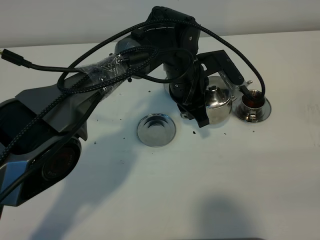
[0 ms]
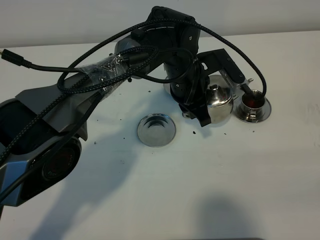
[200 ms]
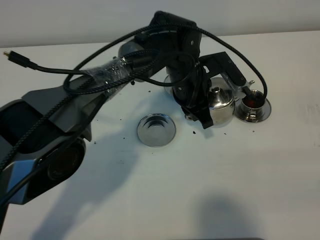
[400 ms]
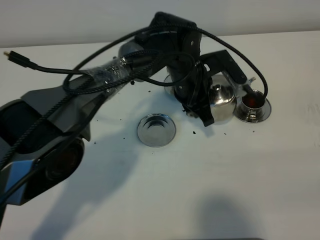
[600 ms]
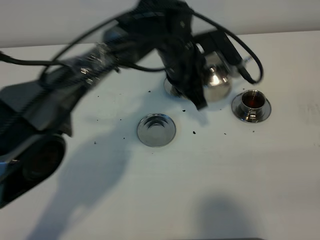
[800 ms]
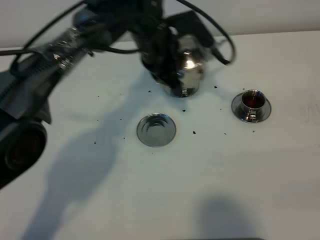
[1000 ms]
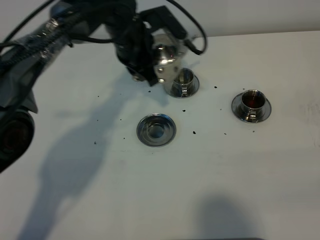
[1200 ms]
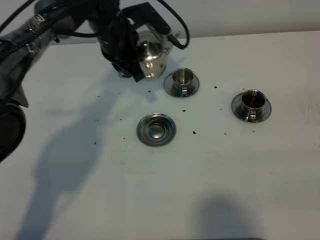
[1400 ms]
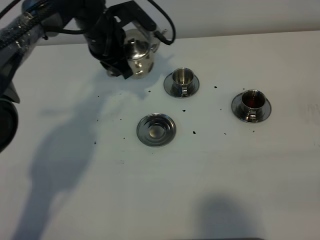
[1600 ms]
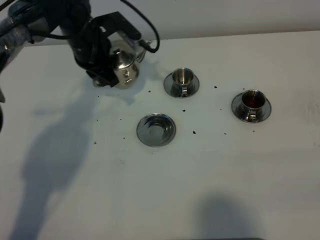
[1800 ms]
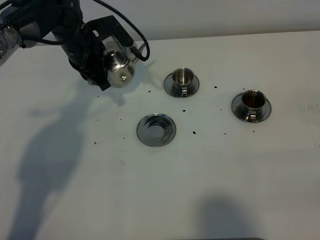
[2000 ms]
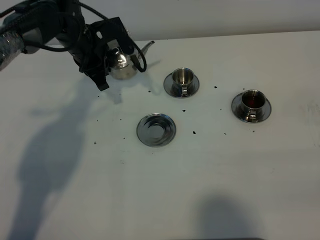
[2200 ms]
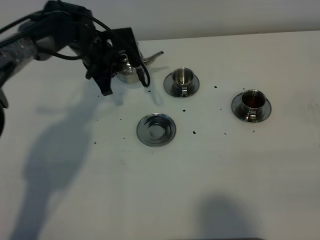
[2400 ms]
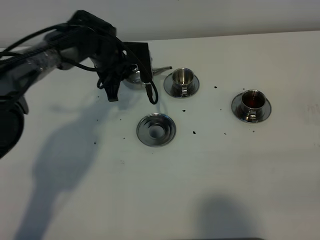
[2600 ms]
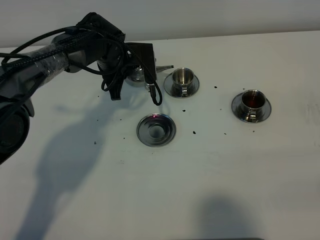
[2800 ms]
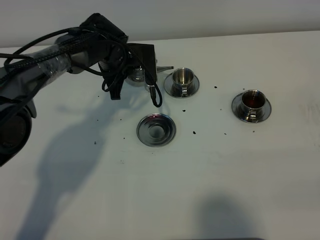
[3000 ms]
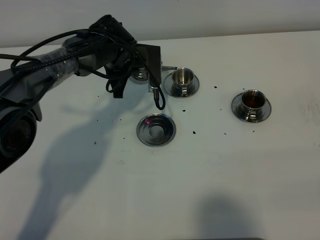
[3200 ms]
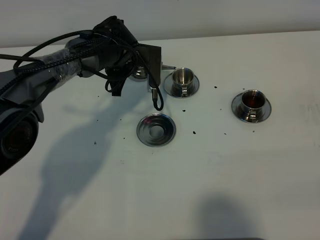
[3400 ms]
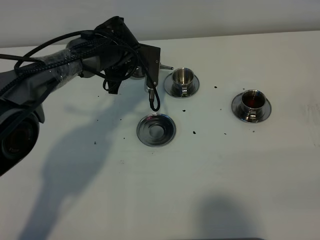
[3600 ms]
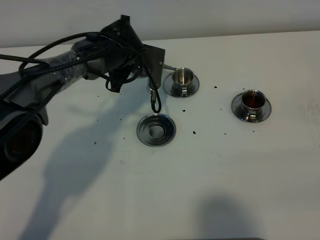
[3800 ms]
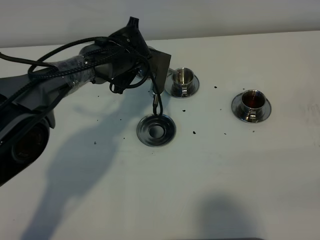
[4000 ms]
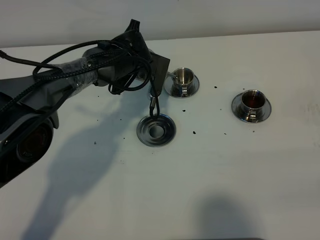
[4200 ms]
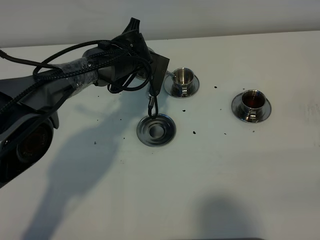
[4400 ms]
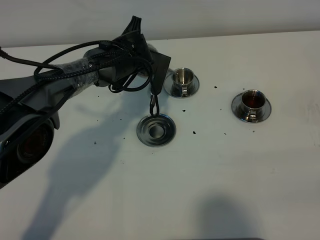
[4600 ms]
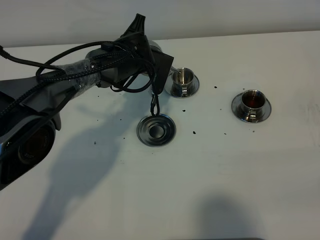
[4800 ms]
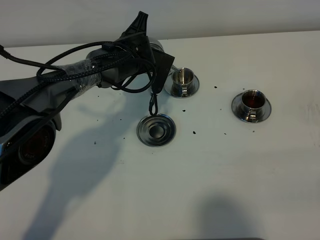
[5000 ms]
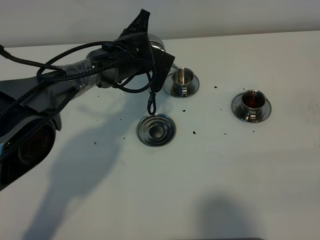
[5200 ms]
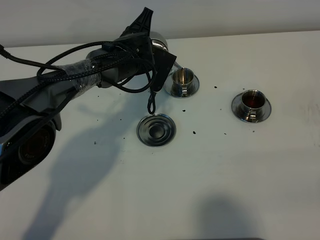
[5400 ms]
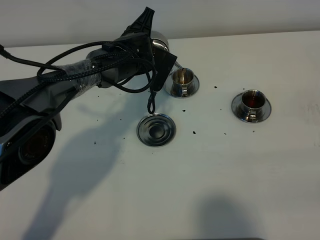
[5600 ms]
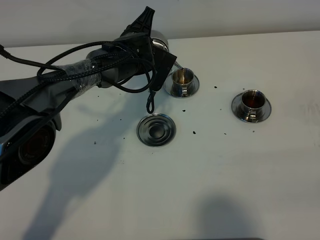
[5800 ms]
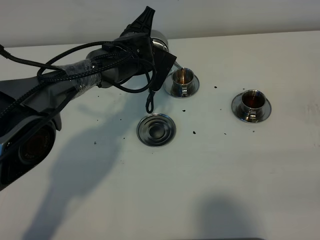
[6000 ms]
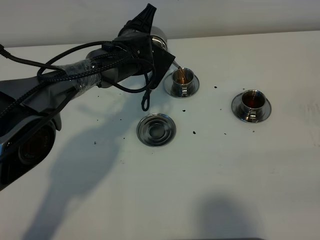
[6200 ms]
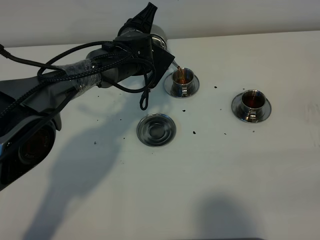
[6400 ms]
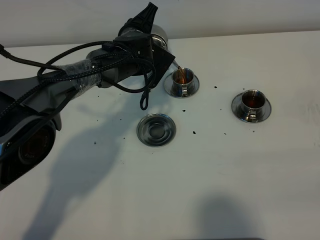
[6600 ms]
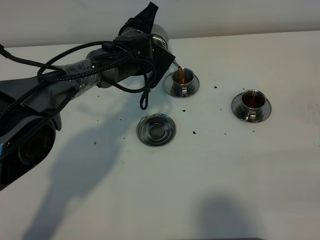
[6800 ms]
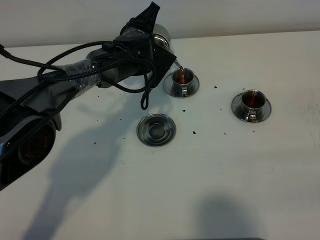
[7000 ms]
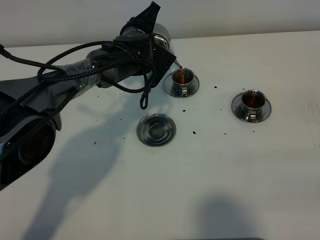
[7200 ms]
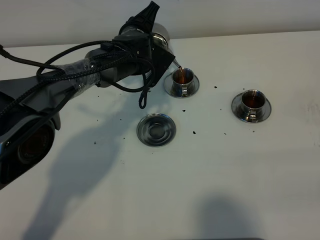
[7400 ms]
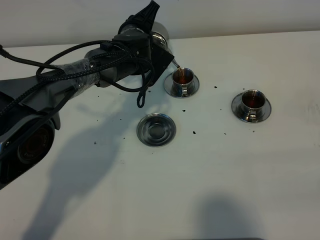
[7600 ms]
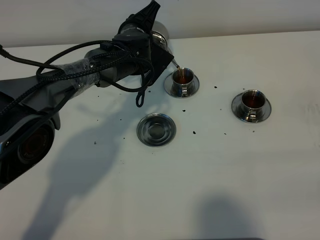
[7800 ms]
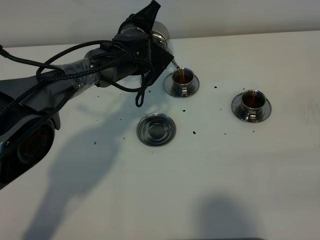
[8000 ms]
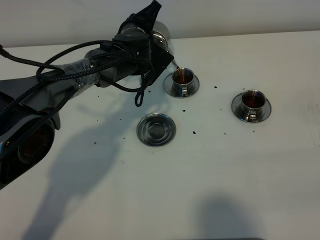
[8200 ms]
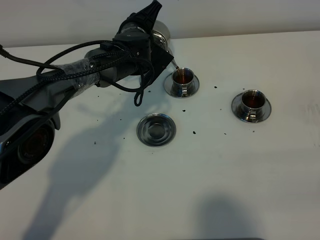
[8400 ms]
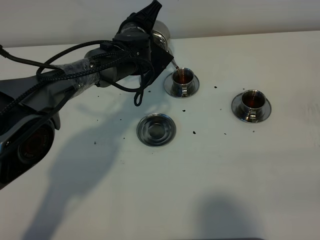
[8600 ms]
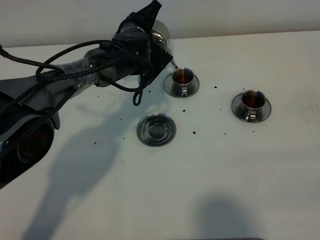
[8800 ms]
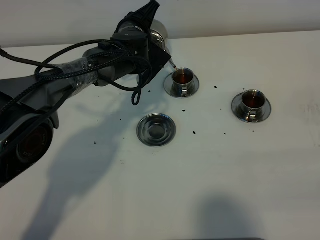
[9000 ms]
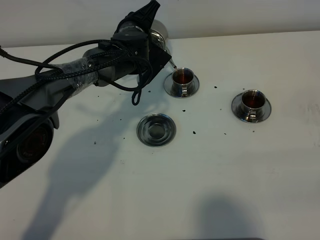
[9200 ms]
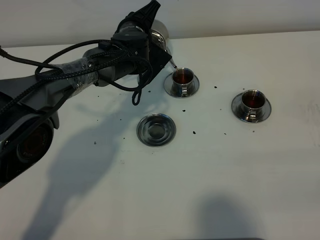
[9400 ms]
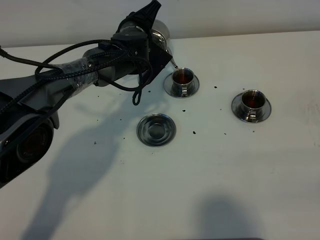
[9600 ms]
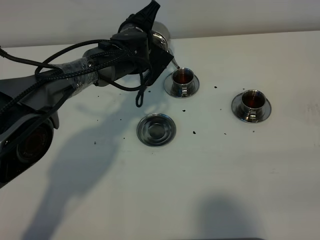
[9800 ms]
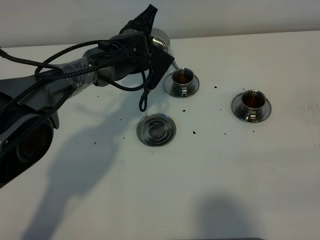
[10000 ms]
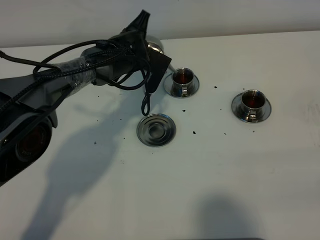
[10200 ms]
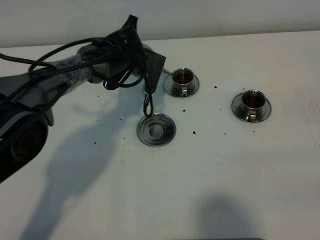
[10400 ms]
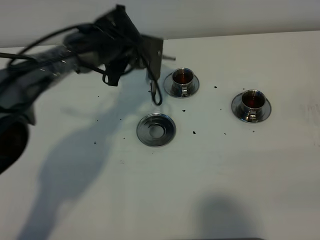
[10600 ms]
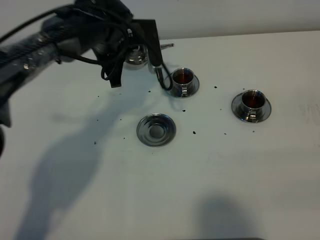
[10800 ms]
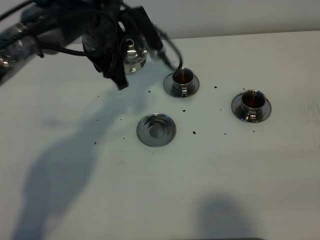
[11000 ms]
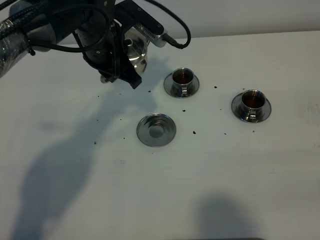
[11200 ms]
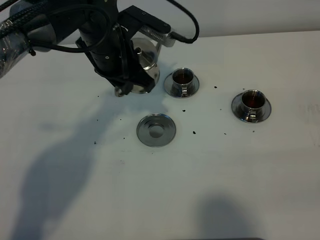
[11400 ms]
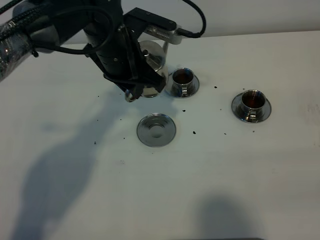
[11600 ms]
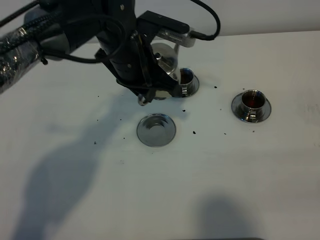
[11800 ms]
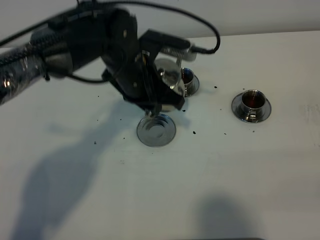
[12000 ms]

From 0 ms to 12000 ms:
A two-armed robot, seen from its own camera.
Task of the whole recording: grasp the stainless steel teapot and pour the tea into the two stainless steel teacups one by one, put the stainless steel teapot back in its original place.
Step, from 0 ms to 10400 ms: Pour tea into the teacup with the left gripper.
From 0 ms to 1600 ms: The left gripper goes about 20 cm to the left and forward.
From 1600 ms to 3000 ms: The left gripper is displaced downward by about 5 cm.
From 4400 ms to 6000 ms: The grippers stay close to where they were, moving slightly.
From 6000 ms to 7600 ms: The grippers make only small movements.
From 7600 ms to 9000 ms: Both grippers stay about where they are.
From 10400 ms to 12000 ms: The left gripper heads backward and upward, covering approximately 15 cm.

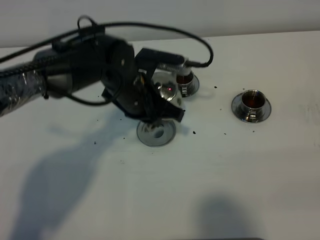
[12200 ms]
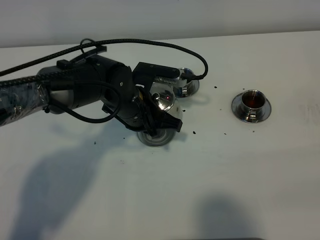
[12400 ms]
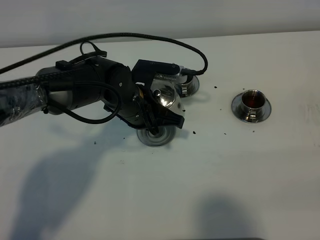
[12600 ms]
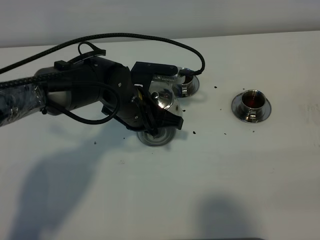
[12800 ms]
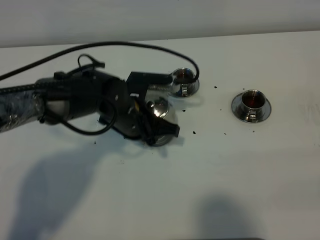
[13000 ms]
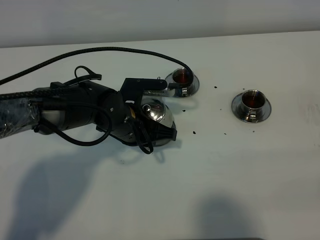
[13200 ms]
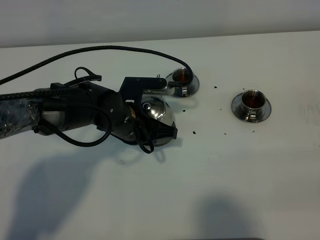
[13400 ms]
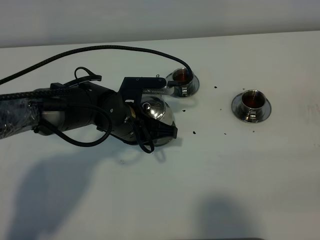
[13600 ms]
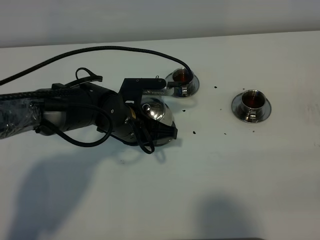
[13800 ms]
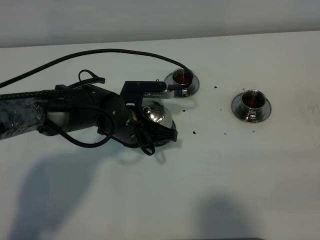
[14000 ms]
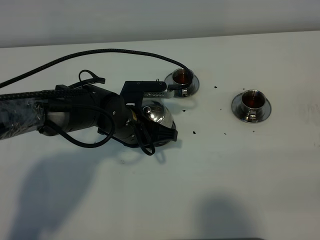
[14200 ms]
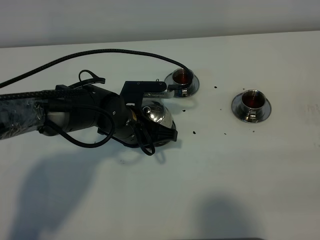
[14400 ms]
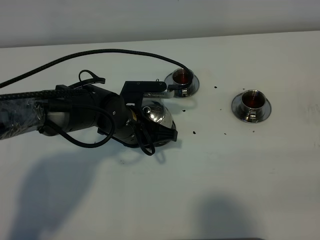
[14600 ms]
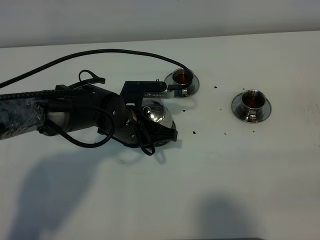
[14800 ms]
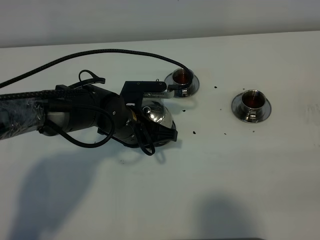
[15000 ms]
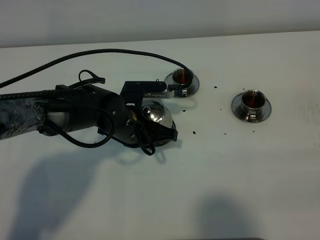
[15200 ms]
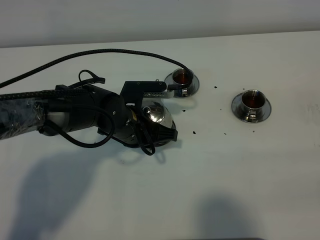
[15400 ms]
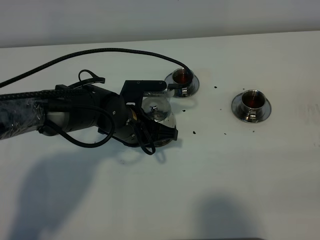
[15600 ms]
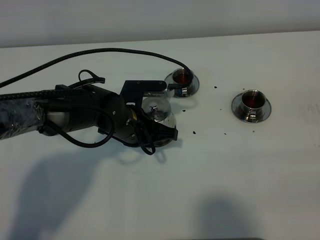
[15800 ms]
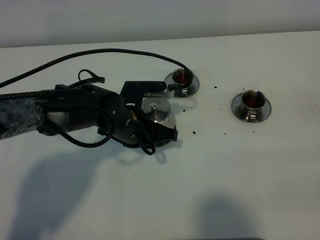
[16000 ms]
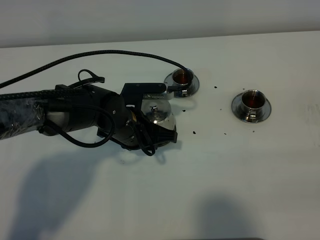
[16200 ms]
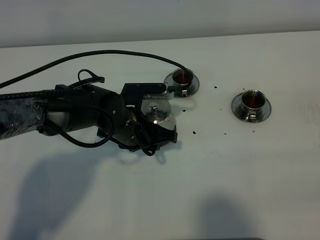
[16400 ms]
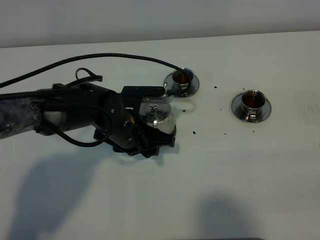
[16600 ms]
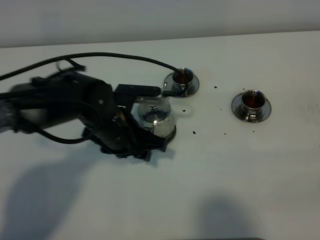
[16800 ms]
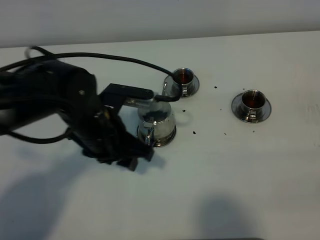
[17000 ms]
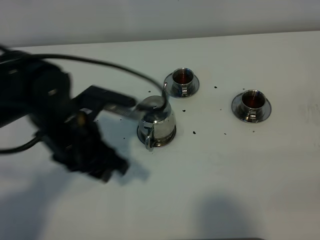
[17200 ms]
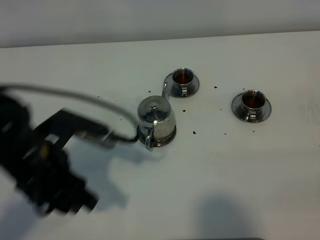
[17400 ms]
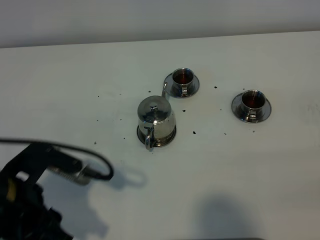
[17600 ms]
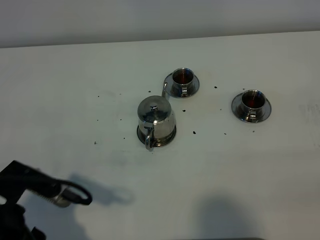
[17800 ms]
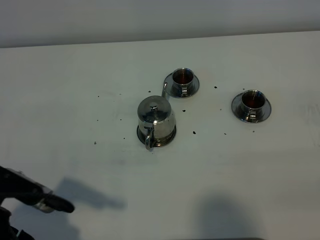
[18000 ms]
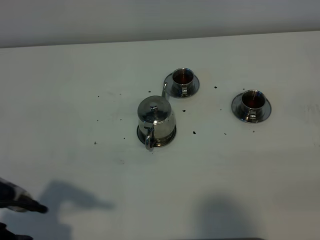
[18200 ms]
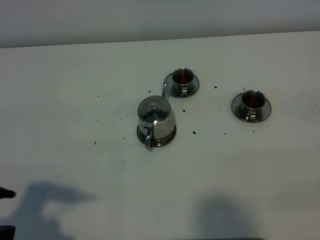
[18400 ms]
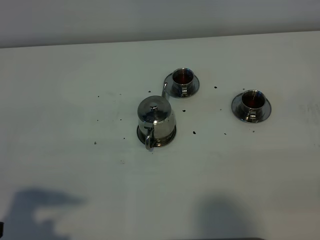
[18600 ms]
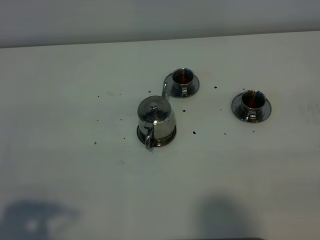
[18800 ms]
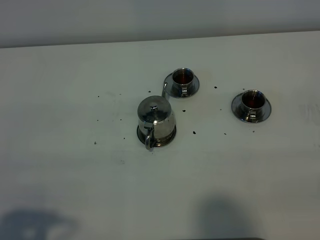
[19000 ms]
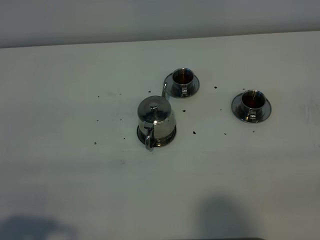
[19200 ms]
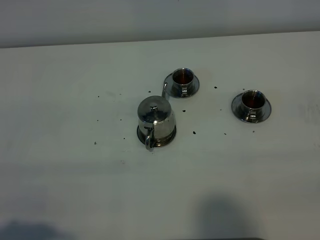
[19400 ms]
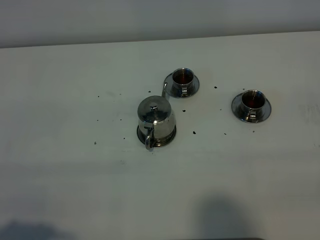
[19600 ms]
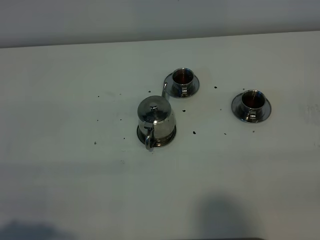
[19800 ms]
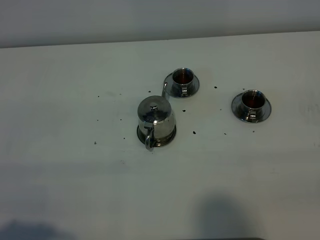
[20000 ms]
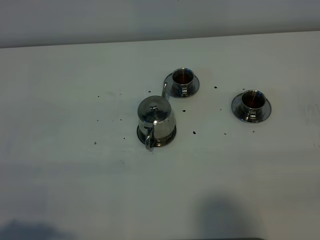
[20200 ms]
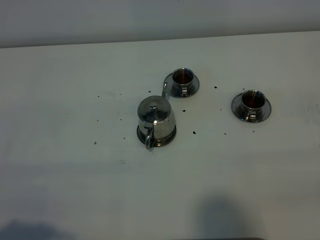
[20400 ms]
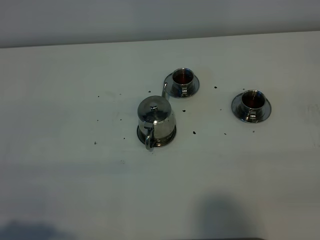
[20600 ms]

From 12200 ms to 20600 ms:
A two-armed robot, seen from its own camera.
Task of the whole recording: grasp the stainless steel teapot and pour the tea into the two stainless steel teacups one by one, put the stainless steel teapot back in its original place.
From 12200 ms to 13600 ms: The left gripper changes place by approximately 5 cm.
From 13600 ms to 15000 ms: Both grippers stay put.
From 15000 ms to 16400 ms: The left gripper opens.
From 16400 ms to 17800 ms: The left gripper goes some 25 cm backward, to the left and upward.
From 17800 ms to 19200 ms: The left gripper shifts approximately 10 cm backward and to the left.
From 19200 ms to 20600 ms: Both grippers stay about where they are.

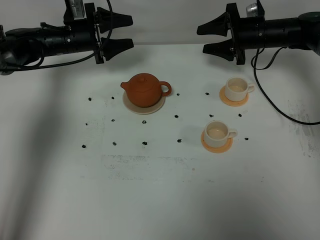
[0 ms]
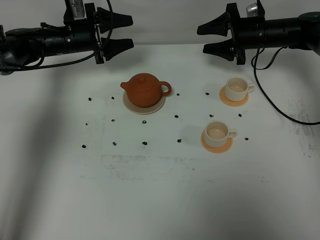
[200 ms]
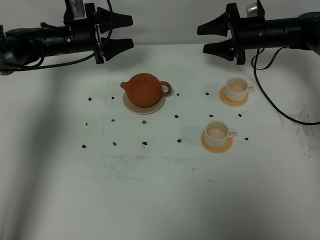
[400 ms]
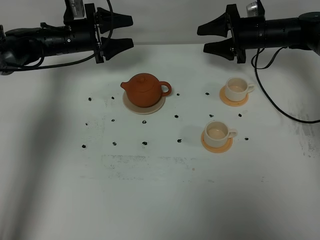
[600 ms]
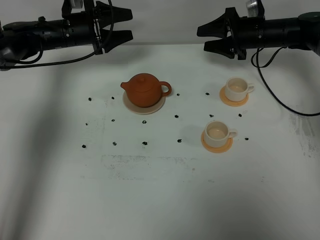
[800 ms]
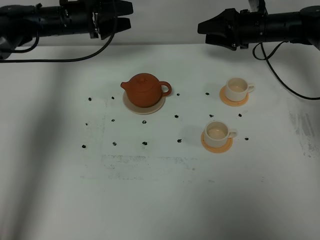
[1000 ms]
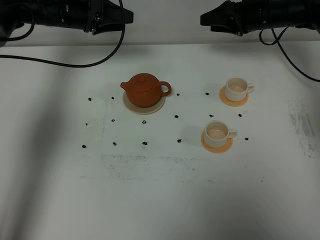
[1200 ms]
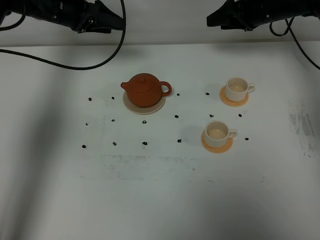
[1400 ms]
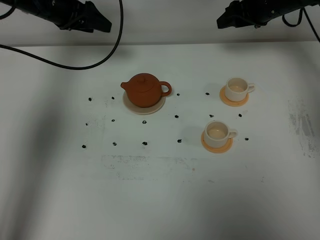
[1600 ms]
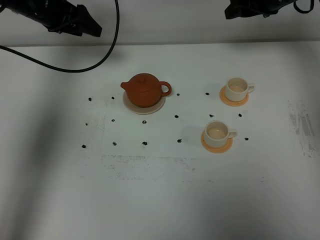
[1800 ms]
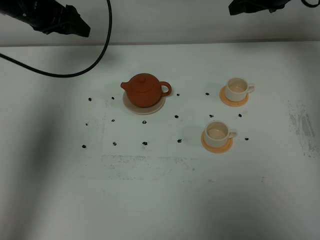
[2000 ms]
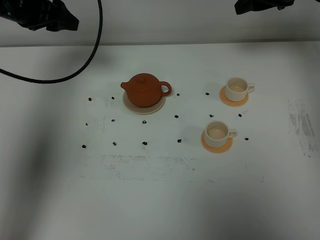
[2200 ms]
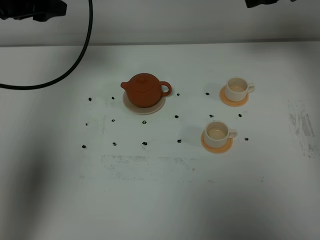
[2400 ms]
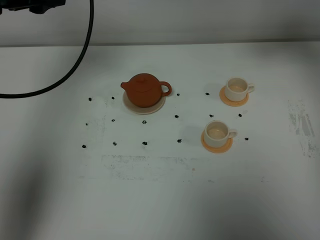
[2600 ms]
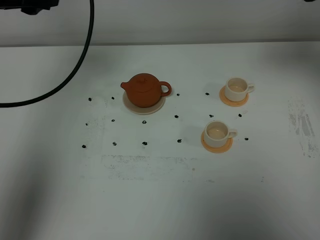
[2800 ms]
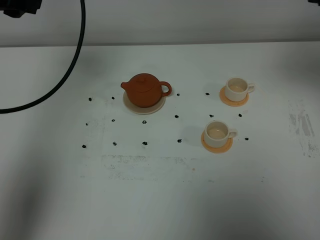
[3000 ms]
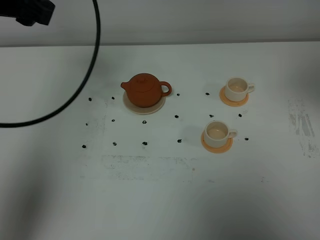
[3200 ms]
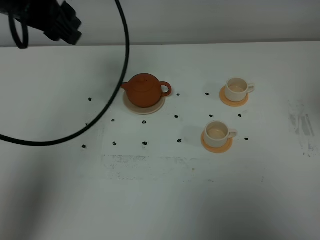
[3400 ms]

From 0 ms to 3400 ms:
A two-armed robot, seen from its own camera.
Task of the whole recording: grasp the brown teapot and pour the tea into the two white teacups one by one, put the brown teapot back in its original place.
From 0 ms to 1600 ms: The grippers both shift upward by approximately 10 cm.
From 1600 ms to 3400 ms: The right gripper travels backward and upward by roughly 50 cm, and closes its fingers. The left gripper travels backward and upward by roughly 20 cm.
